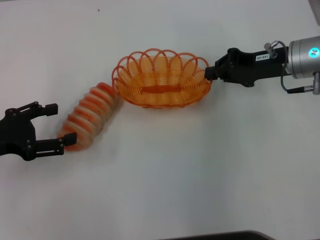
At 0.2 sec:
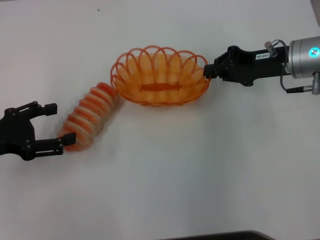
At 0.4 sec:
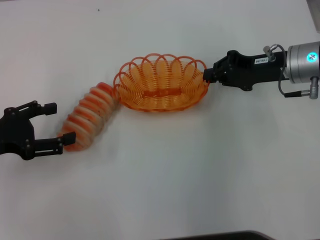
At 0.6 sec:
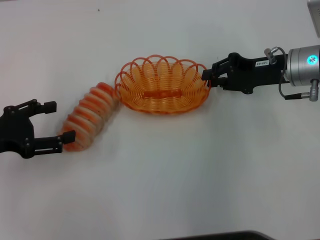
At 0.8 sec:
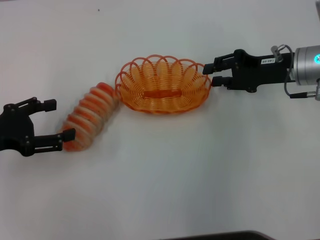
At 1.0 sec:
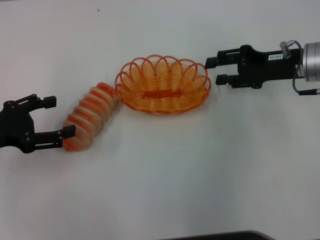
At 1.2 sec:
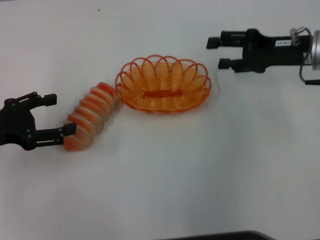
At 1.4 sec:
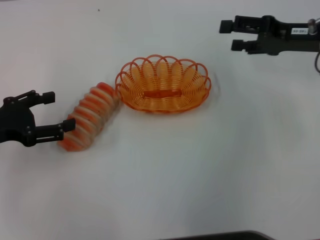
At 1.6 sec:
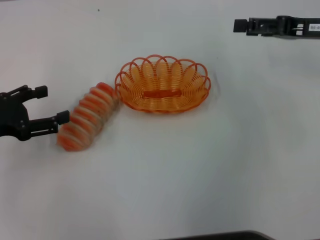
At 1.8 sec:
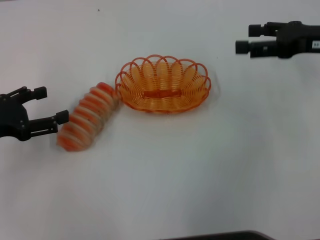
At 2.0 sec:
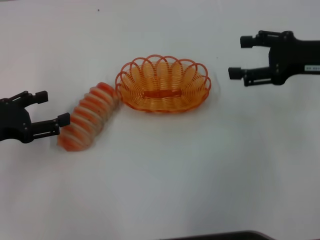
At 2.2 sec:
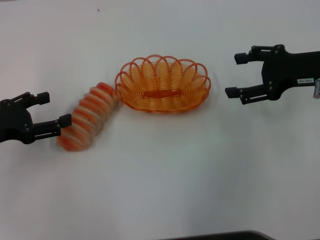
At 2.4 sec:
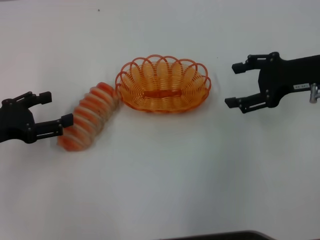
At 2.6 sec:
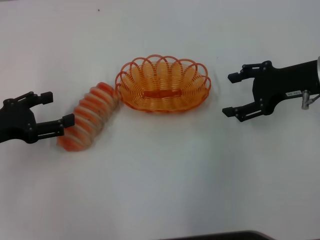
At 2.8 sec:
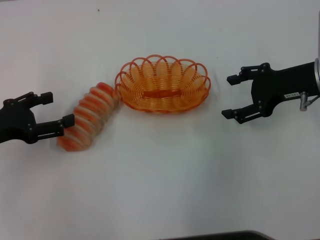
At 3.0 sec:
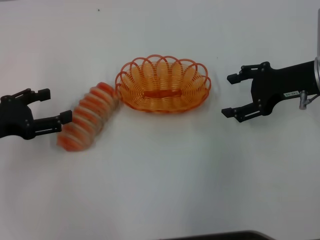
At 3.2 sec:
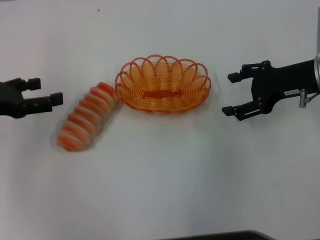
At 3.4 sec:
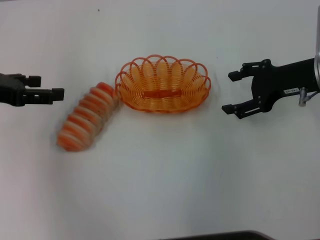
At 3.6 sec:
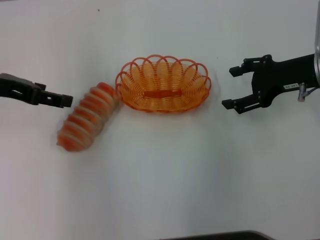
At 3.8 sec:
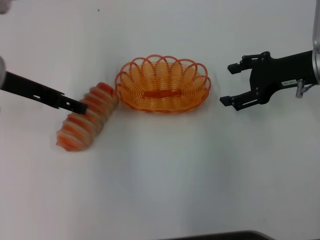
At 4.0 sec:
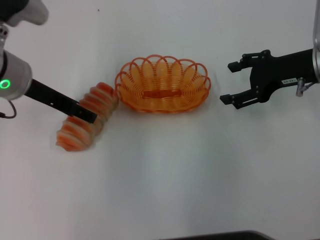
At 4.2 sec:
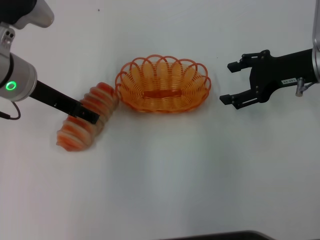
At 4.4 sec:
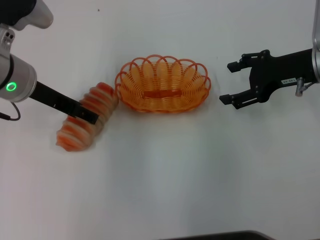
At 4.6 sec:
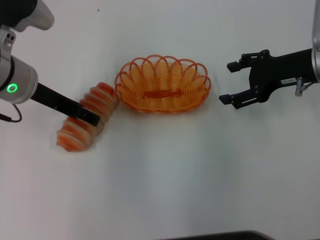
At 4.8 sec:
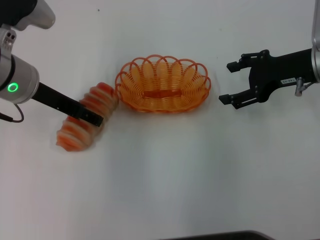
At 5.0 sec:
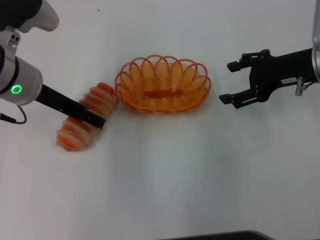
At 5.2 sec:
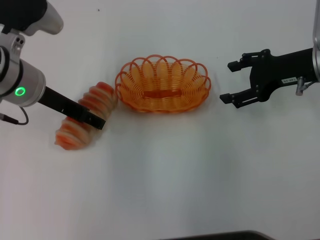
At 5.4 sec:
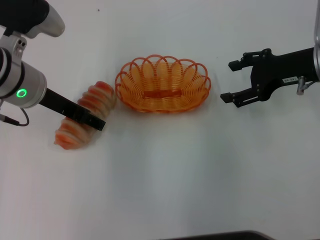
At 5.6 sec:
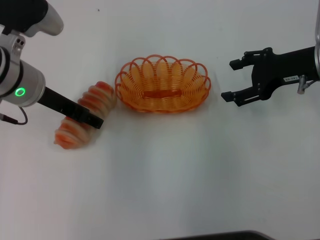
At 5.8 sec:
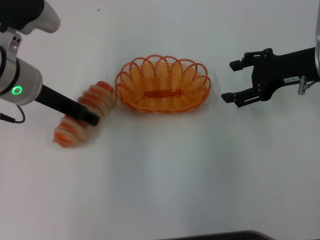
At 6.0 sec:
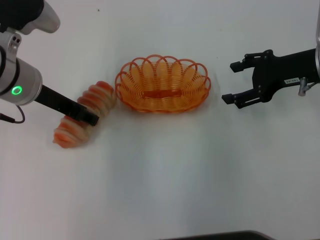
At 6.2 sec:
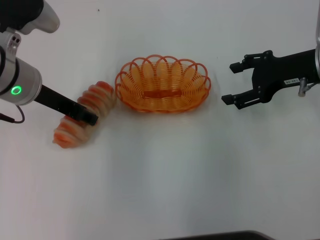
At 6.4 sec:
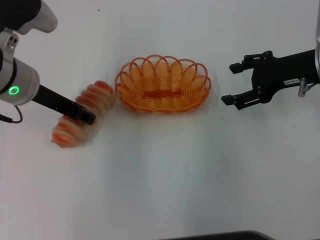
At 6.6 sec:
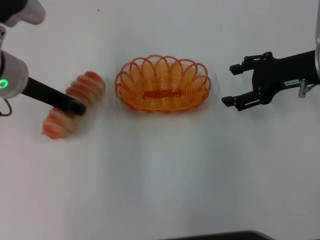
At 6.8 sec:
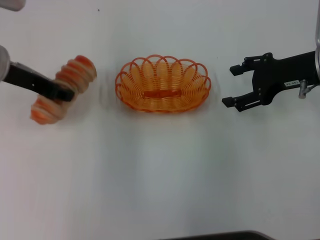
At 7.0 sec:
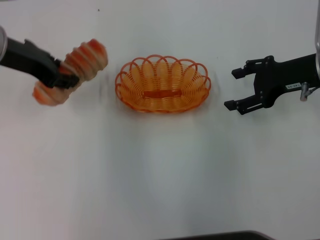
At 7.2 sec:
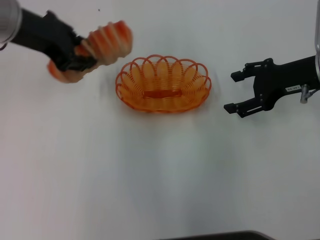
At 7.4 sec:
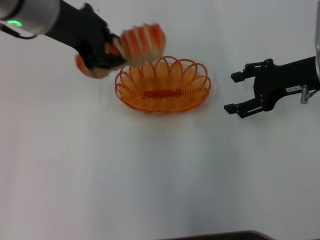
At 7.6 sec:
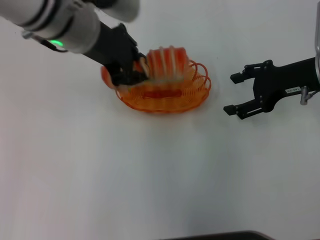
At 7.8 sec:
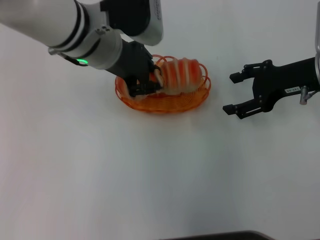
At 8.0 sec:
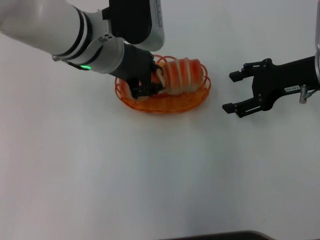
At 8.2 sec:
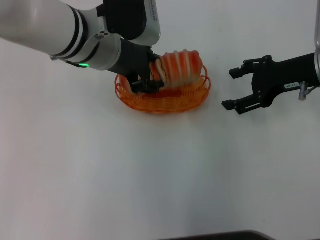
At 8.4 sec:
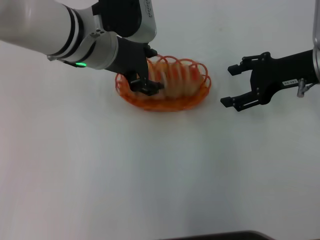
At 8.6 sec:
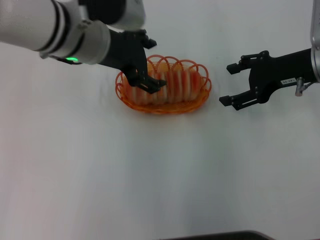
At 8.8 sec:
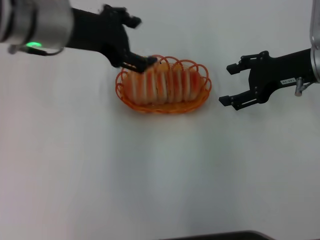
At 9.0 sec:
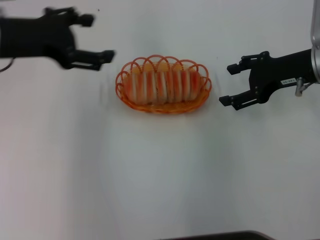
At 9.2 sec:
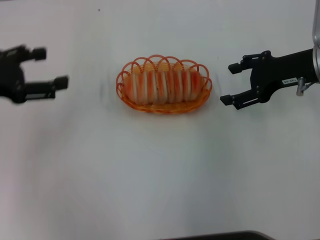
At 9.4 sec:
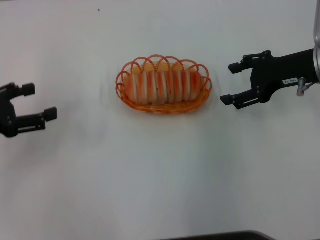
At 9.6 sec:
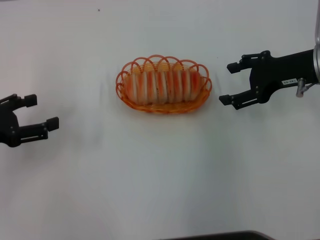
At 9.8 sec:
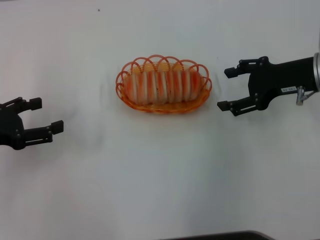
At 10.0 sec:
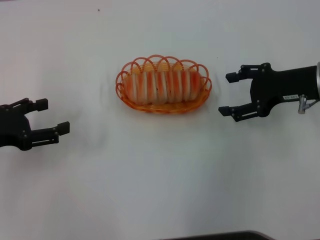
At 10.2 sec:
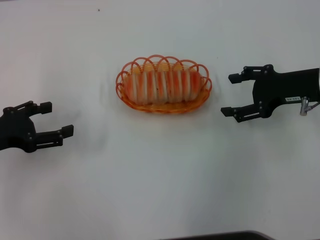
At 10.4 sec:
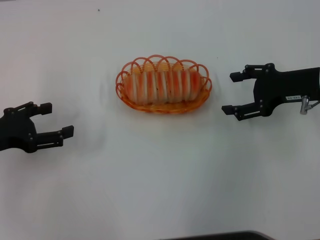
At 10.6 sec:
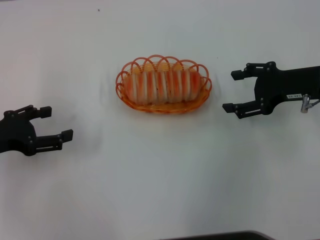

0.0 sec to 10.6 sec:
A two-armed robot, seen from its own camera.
Step, 0.0 sec to 1.2 sec: Place the basket in the center of view with the right gripper.
Step, 1.4 sec to 7.0 sec: Pick up the long bread with the left gripper.
Step, 7.4 sec to 9.2 sec: Place the long bread into the basket with the left gripper.
0.0 sec to 1.6 sec: The right gripper is displaced to the right by approximately 5 cm, and opens its fingers.
1.6 sec to 3.0 sec: The right gripper moves some 5 cm.
3.0 sec to 4.6 sec: The left gripper is displaced to the right, forward and upward by approximately 15 cm.
4.6 sec to 6.0 sec: Both grippers stay put.
6.0 sec to 7.6 sec: The left gripper travels to the right and upward by some 10 cm, and closes.
7.6 sec to 9.0 sec: The left gripper heads to the left, covering roughly 10 cm, and opens.
9.0 sec to 10.6 sec: The left gripper goes about 15 cm downward, to the left and backward.
